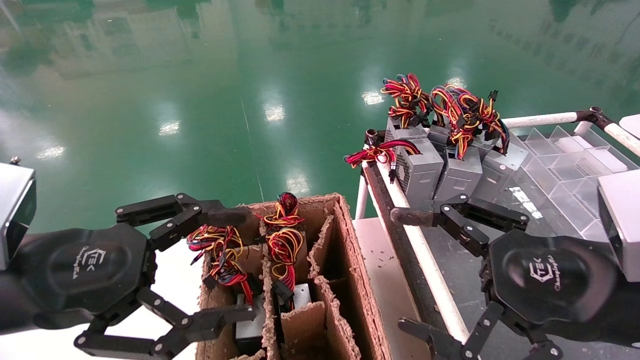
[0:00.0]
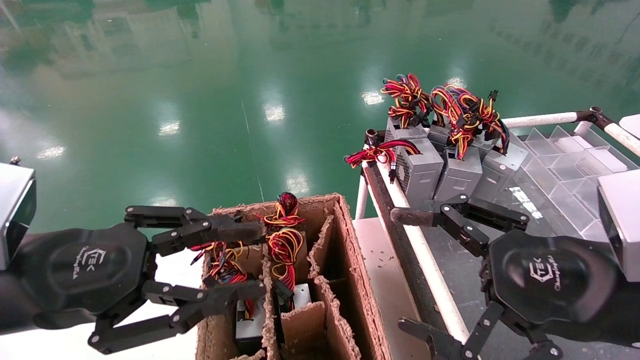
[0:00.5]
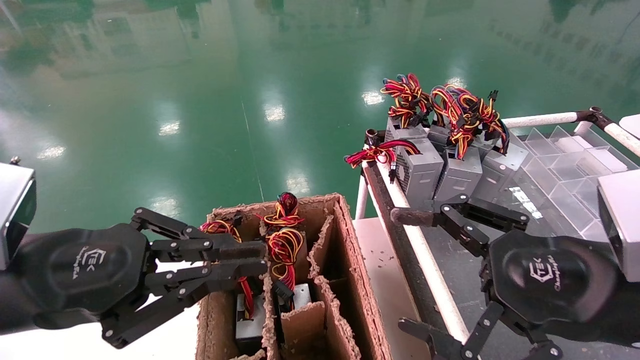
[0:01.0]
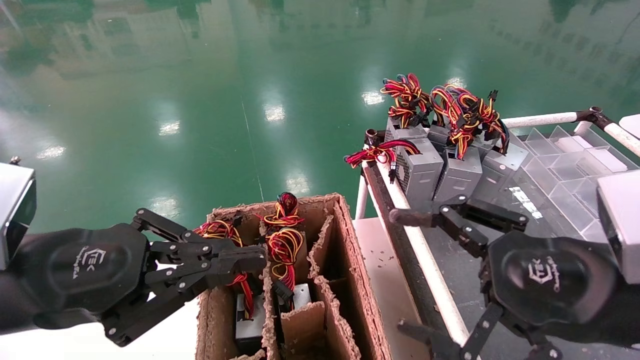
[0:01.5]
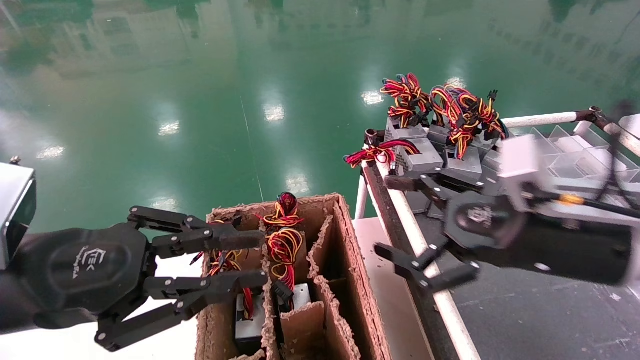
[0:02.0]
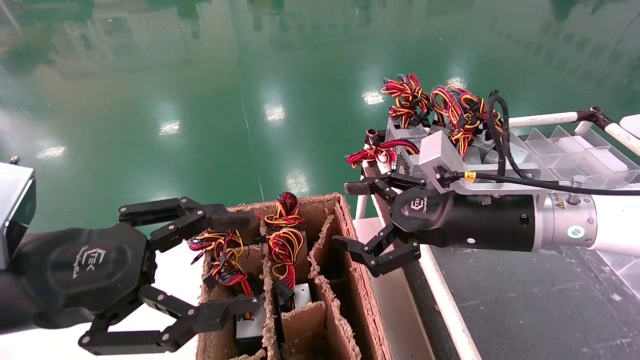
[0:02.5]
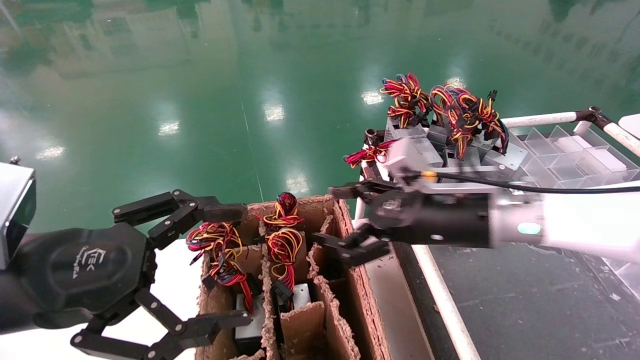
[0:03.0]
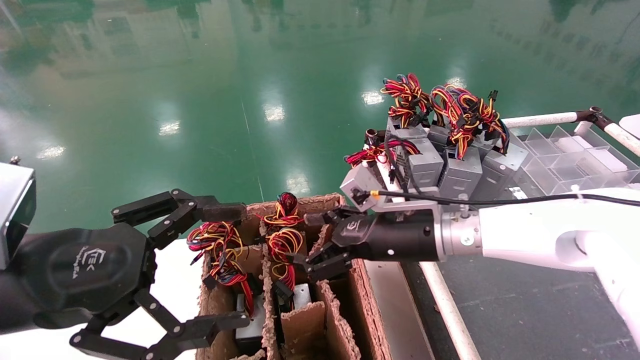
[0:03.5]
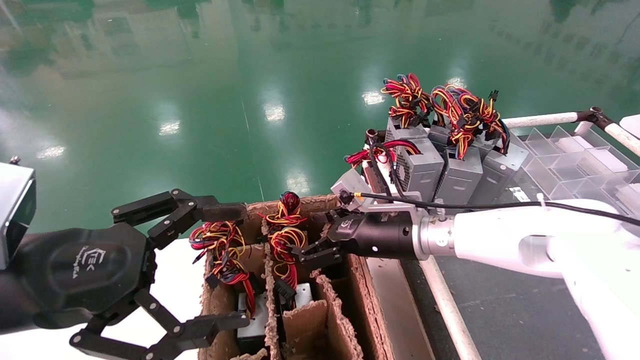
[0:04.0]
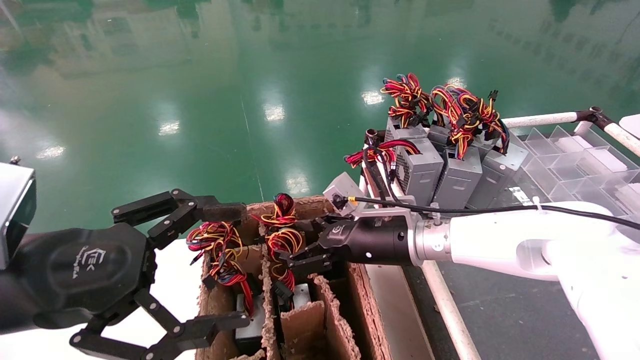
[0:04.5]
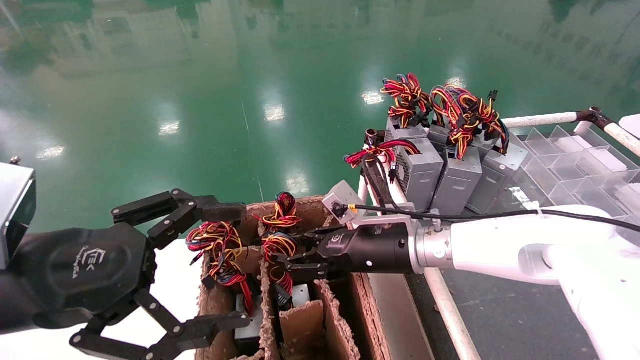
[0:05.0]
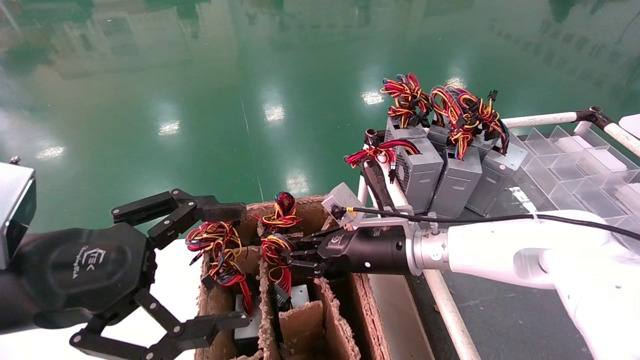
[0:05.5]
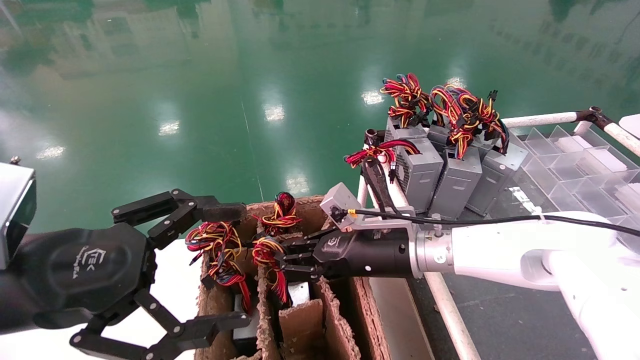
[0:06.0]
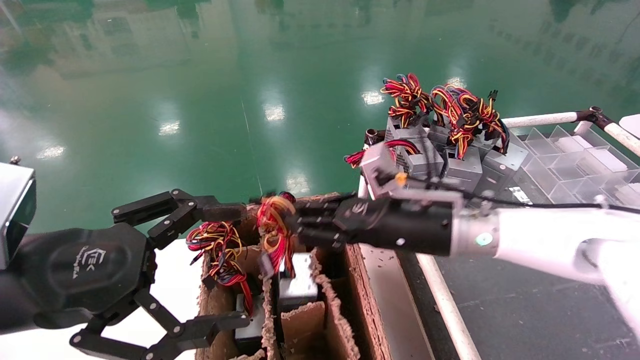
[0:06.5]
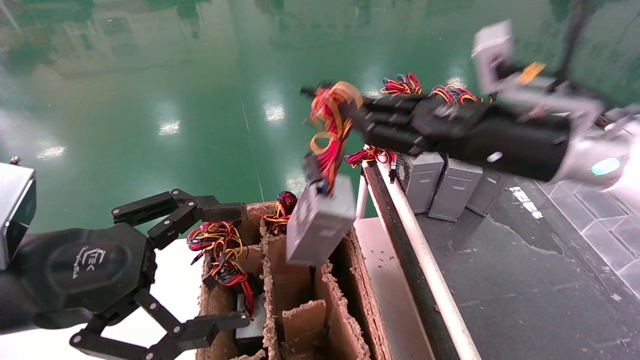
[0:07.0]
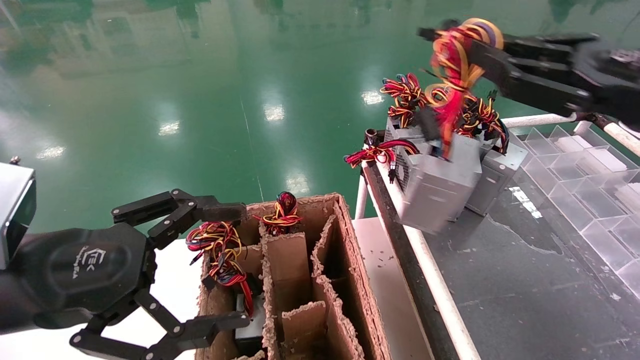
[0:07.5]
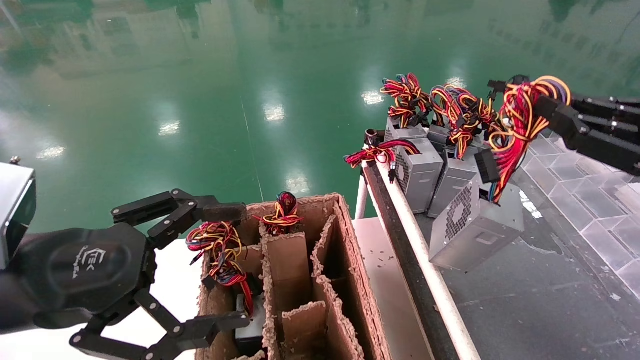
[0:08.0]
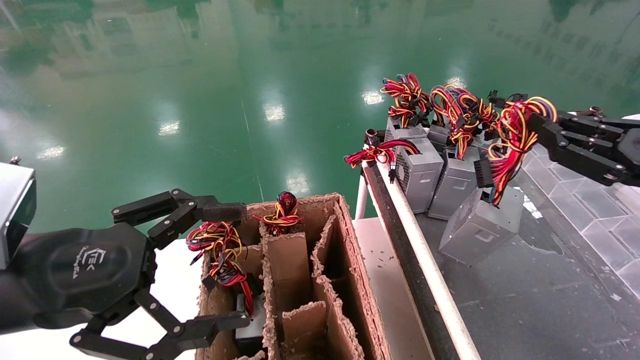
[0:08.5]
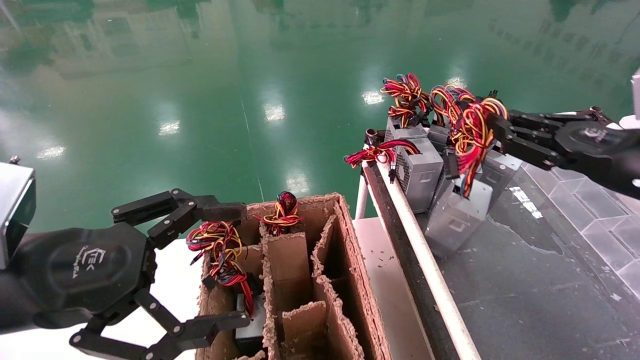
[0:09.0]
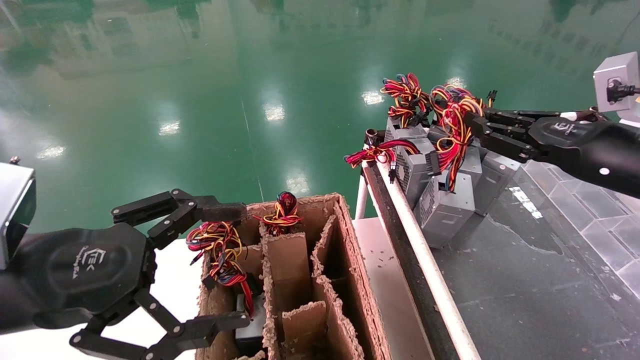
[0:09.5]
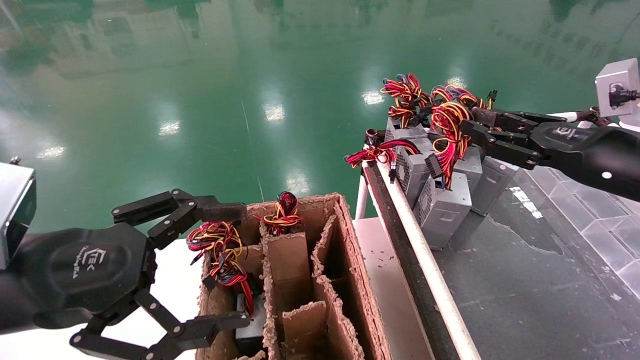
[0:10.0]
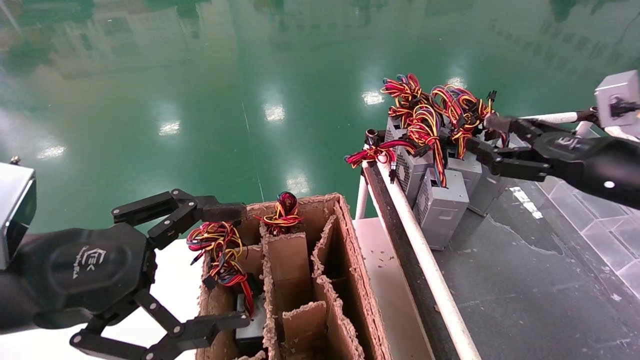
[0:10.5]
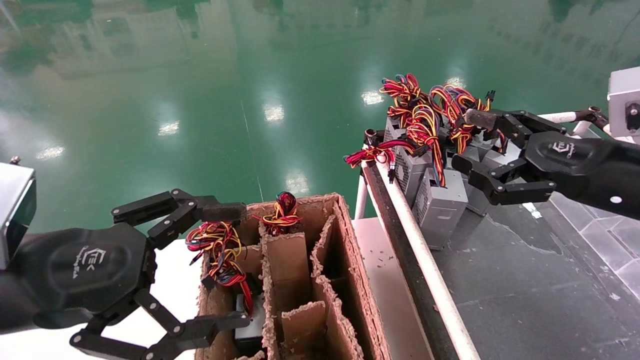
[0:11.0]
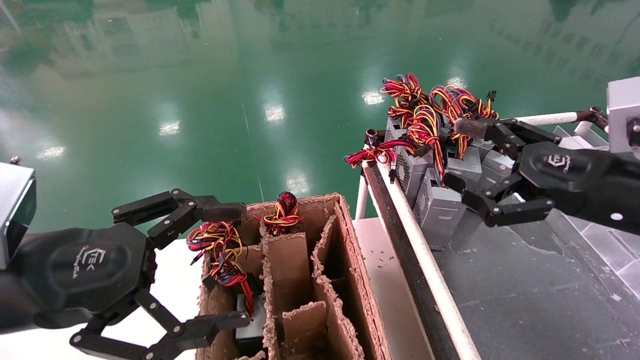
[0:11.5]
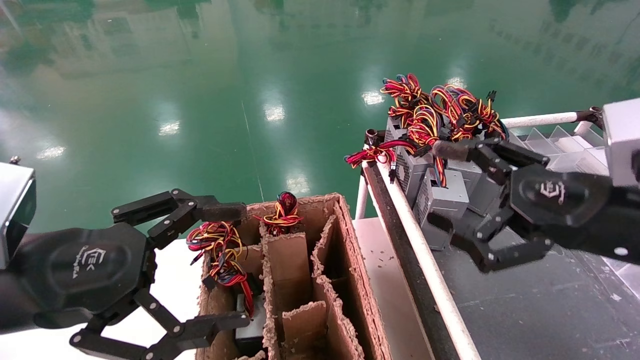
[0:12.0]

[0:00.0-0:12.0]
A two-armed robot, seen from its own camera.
Step, 0:01.5 to 0:05.5: Grab and lift the power supply from the large box.
Step, 0:06.0 to 0:11.0: Place the power supply on the operating table.
0:00.0 to 0:02.0: The right gripper travels forward by approximately 10 cm, while the left gripper closes.
0:02.0 to 0:04.0: The right gripper heads forward, to the left and downward, covering some 20 cm; the left gripper opens.
0:04.0 to 0:06.0: The right gripper closes.
0:06.0 to 0:08.0: The right gripper moves to the right, backward and upward, roughly 35 cm.
0:08.0 to 0:10.0: The right gripper heads forward, covering roughly 10 cm.
0:10.0 to 0:12.0: The right gripper moves backward and to the left, approximately 10 cm, and opens its fingers.
